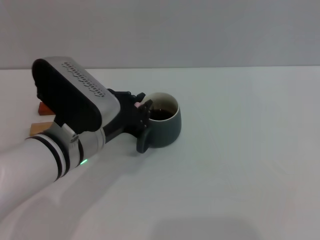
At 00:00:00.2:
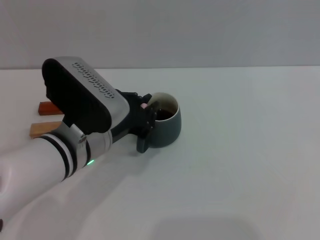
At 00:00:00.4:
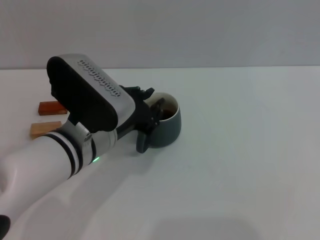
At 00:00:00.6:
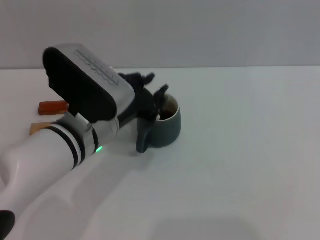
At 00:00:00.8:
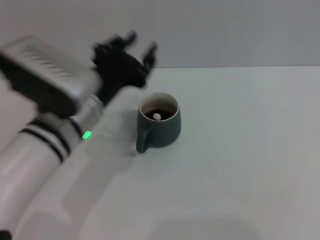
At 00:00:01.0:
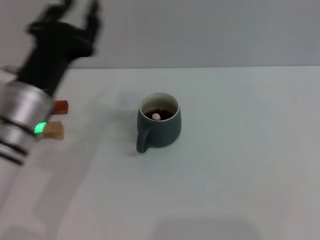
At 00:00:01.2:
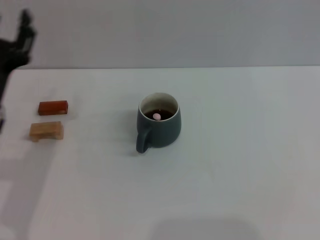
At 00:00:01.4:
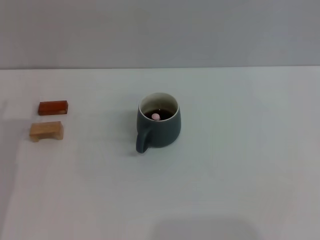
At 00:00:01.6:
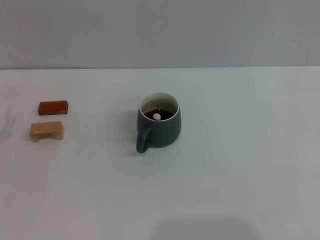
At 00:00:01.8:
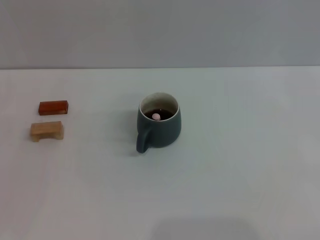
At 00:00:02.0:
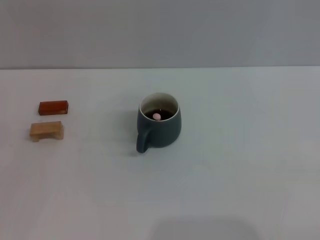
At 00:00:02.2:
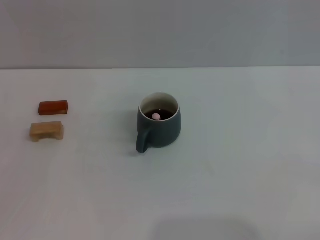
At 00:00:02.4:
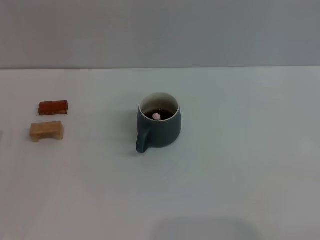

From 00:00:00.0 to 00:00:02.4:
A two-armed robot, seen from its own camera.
Task of the whole recording: Move the grey cup to the center, lift the pink spoon, stir it three times in the cup, and put the spoon into the cup.
From 00:00:00.0 to 00:00:01.2: The left gripper is displaced to the left by some 10 cm, and opens its fingers.
From 00:00:01.2 to 00:00:02.4: The left gripper shifts some 15 cm to the left, downward and backward, and opens its fingers.
